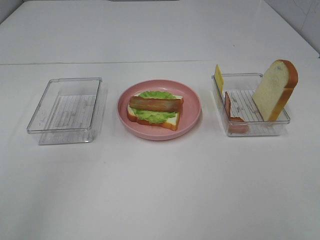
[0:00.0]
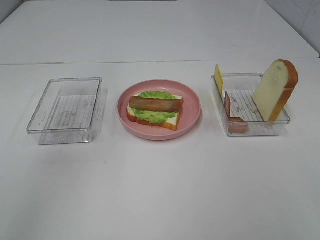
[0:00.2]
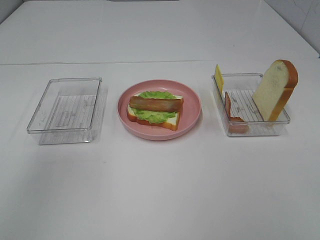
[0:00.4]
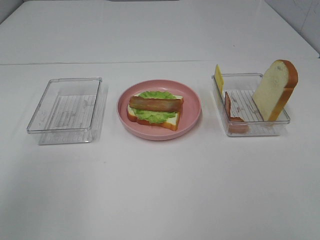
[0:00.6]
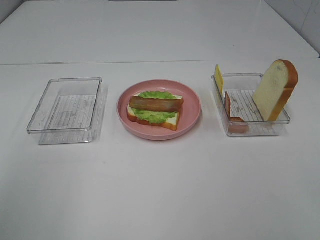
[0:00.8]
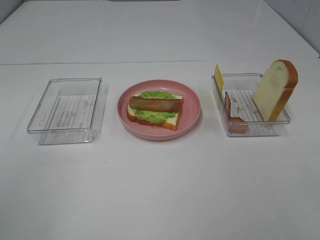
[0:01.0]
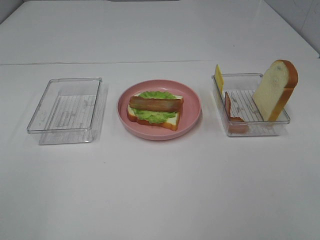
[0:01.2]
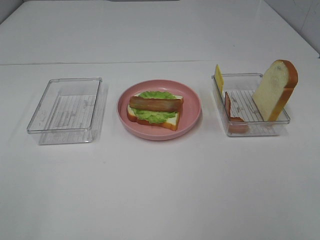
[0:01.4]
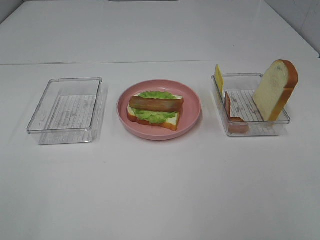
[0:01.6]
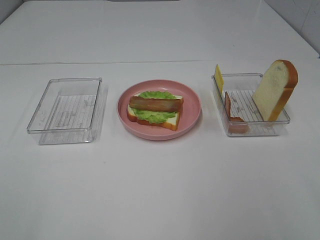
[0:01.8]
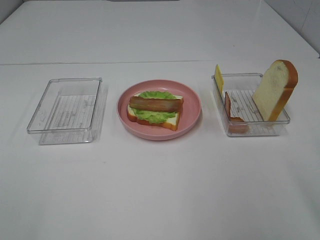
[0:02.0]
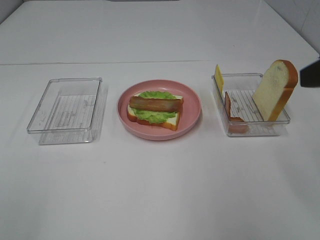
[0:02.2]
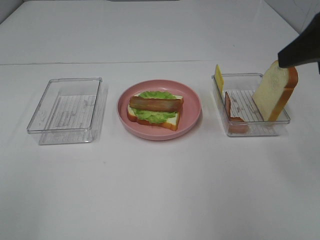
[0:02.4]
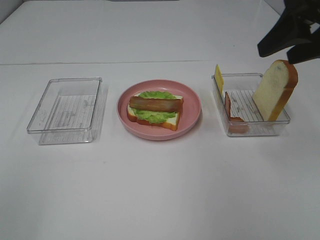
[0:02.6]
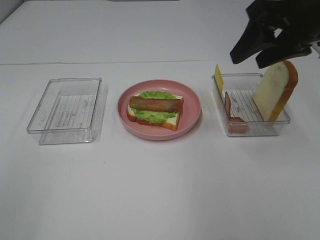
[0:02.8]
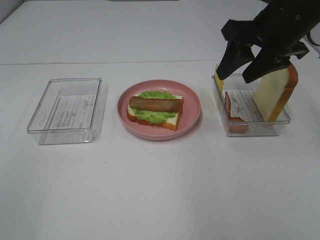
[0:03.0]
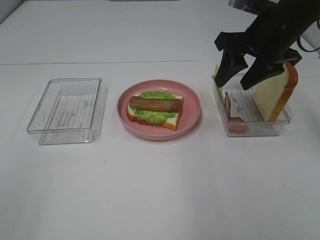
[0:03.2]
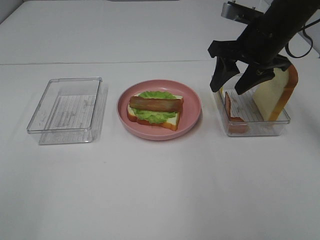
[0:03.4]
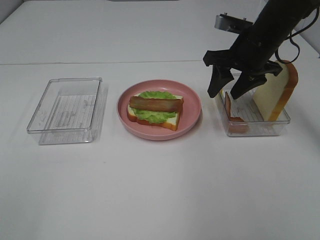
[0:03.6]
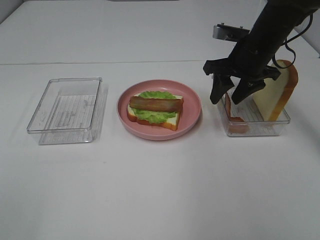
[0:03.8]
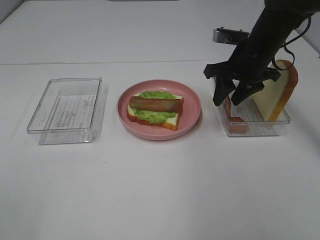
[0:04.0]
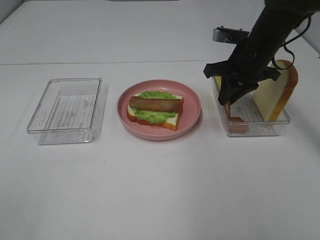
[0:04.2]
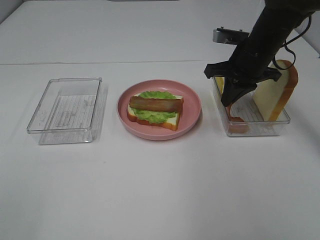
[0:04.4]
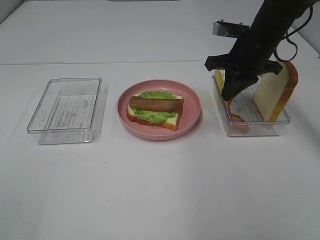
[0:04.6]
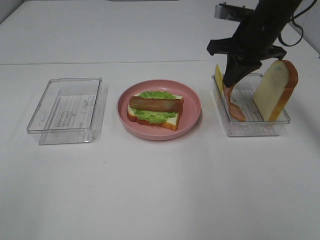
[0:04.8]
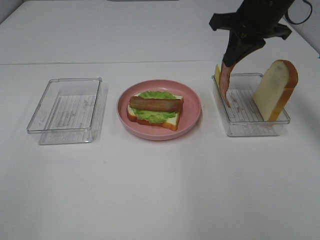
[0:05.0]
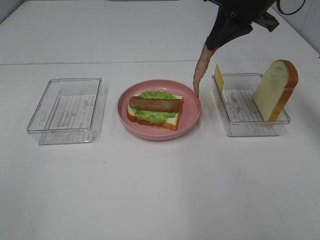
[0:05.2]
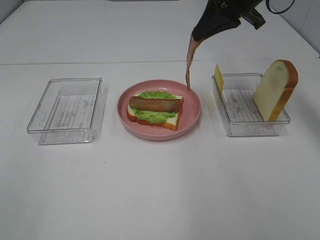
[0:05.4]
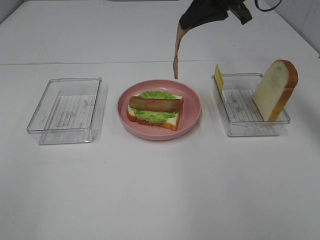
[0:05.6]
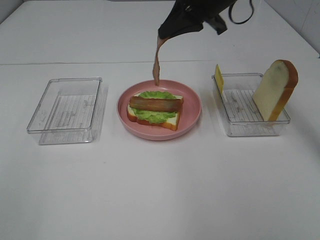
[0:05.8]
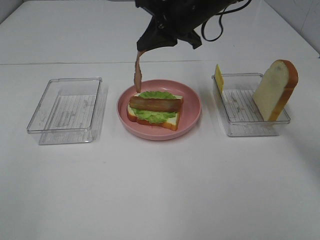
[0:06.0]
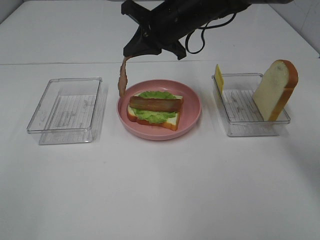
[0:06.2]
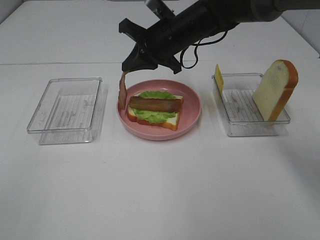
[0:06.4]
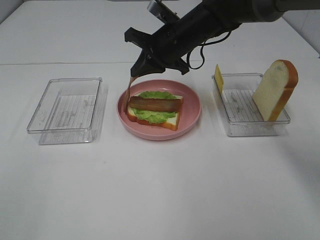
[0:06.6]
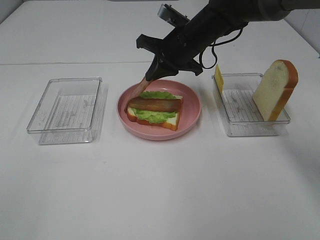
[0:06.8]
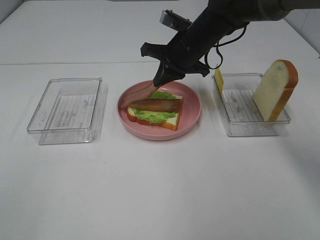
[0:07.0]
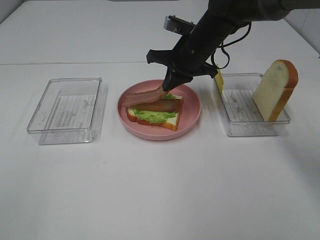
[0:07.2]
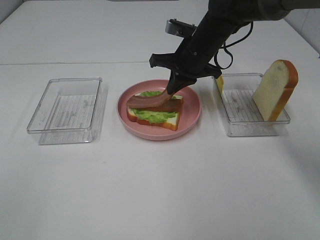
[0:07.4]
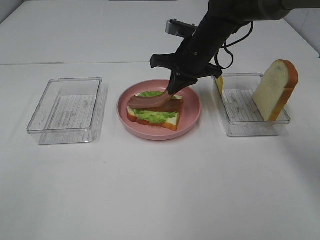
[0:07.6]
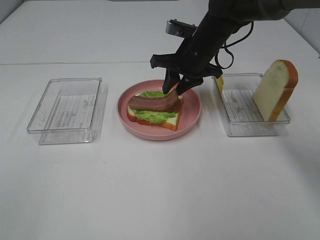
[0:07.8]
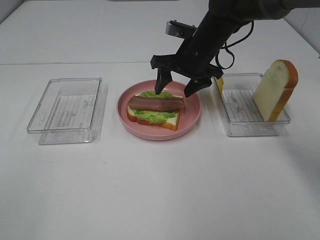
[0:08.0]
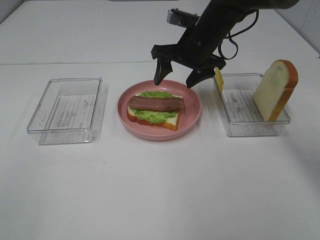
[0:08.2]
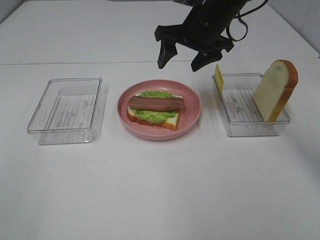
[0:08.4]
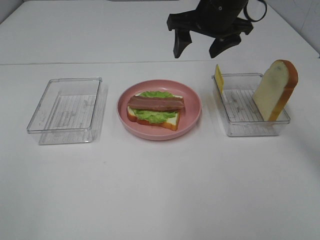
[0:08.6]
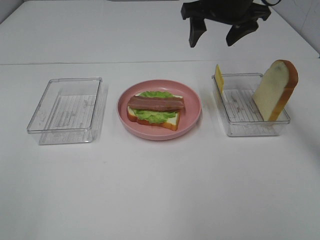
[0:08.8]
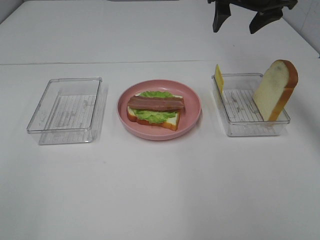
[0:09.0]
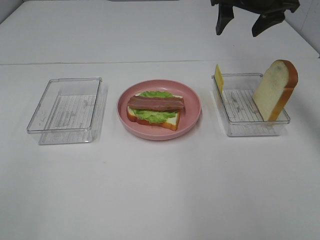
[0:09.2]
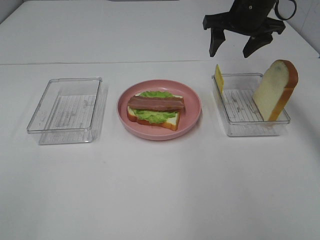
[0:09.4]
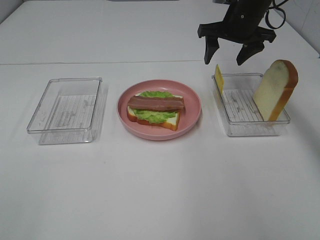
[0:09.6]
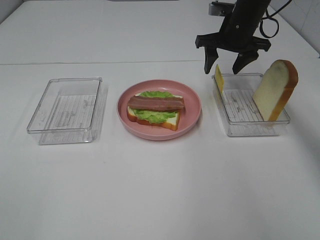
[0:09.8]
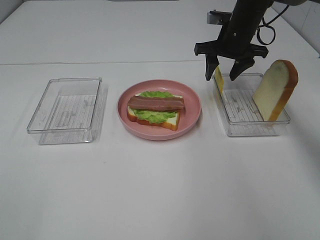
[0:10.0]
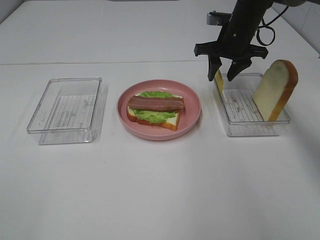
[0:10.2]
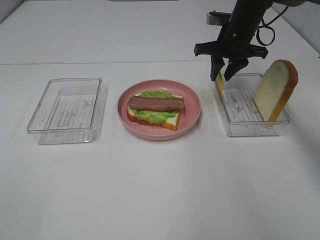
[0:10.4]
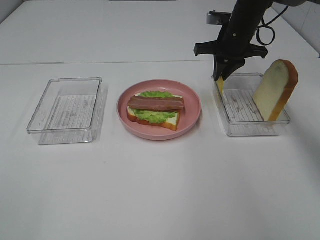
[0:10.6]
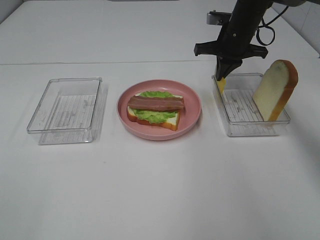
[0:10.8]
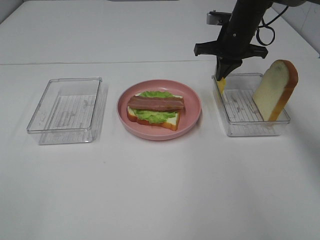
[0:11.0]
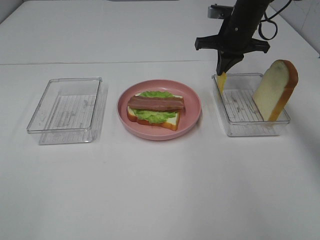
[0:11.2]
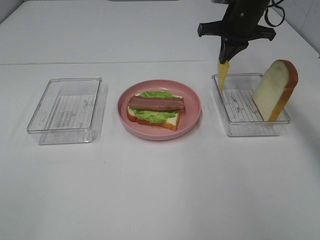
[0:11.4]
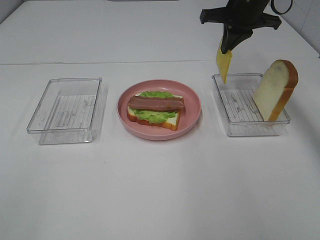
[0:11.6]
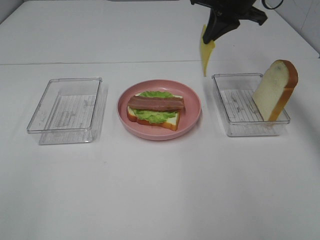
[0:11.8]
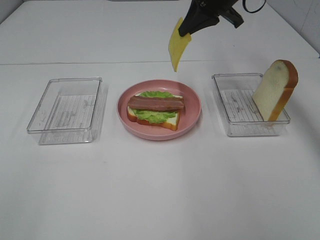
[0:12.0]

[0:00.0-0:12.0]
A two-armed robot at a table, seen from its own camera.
Task of the whole recording: Make sandwiches.
Step, 0:00.0 to 0:04.4: Right hand:grab the bacon.
Step, 0:04.6 to 0:08.0: Right hand:place bacon on bacon.
Step, 0:08.2 to 0:11.2: Right hand:grab the cheese slice.
0:01.6 to 0:03.0: The right gripper heads forward, covering some 30 cm.
0:03.0 to 0:04.4: The right gripper heads downward and forward, covering about 10 cm, and closes up.
0:04.4 to 0:06.0: The right gripper travels to the left and upward by about 15 cm.
0:06.0 to 0:07.6: The right gripper moves downward, about 10 cm.
0:07.6 to 0:09.0: The right gripper moves upward and to the right, some 15 cm, and opens up.
0:09.0 to 0:10.4: The right gripper moves downward, approximately 10 cm, and closes its fingers.
0:10.4 to 0:12.0: The right gripper shifts about 10 cm upward, and closes its fingers.

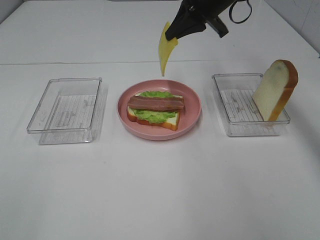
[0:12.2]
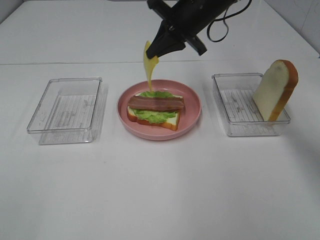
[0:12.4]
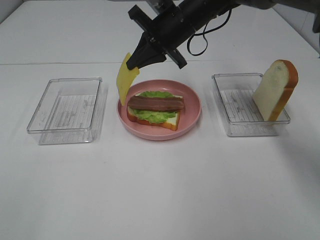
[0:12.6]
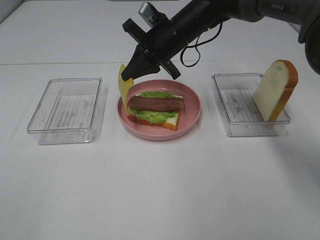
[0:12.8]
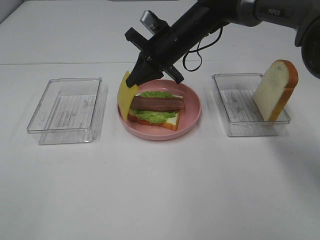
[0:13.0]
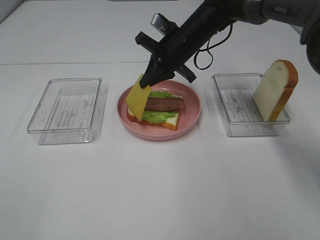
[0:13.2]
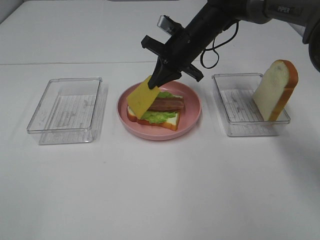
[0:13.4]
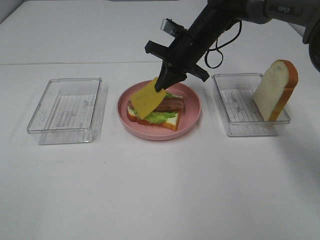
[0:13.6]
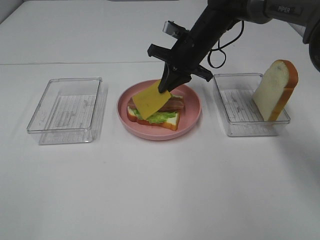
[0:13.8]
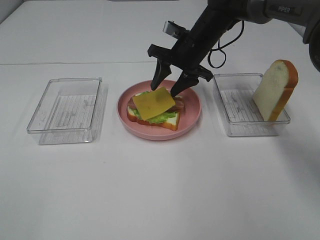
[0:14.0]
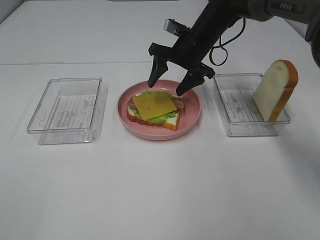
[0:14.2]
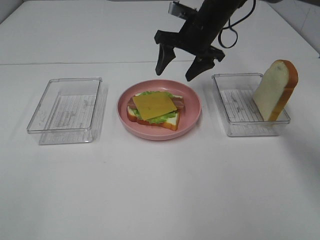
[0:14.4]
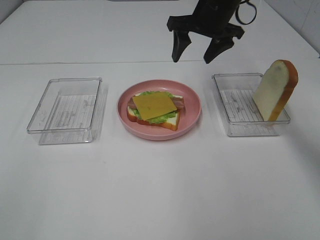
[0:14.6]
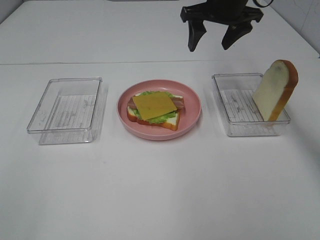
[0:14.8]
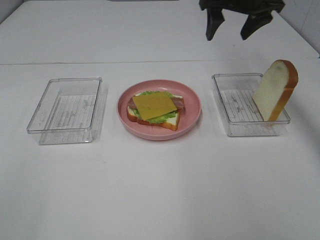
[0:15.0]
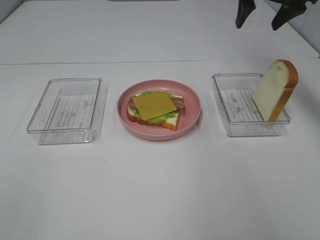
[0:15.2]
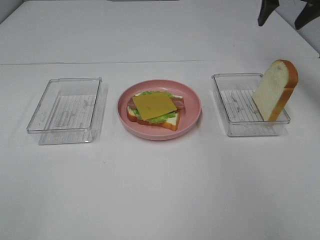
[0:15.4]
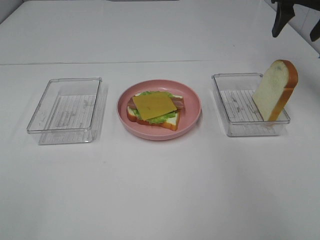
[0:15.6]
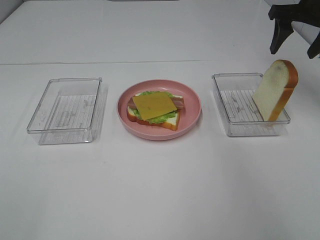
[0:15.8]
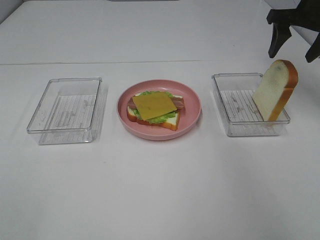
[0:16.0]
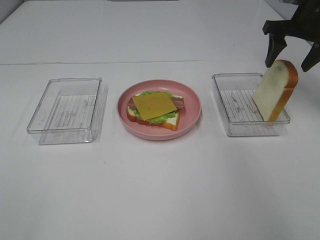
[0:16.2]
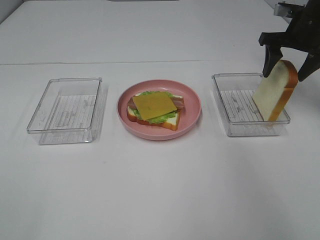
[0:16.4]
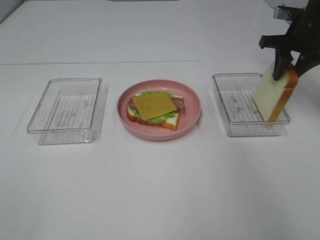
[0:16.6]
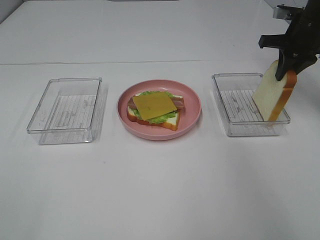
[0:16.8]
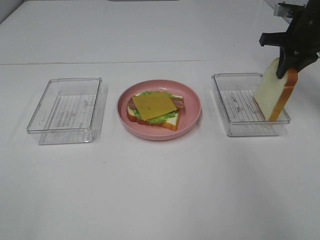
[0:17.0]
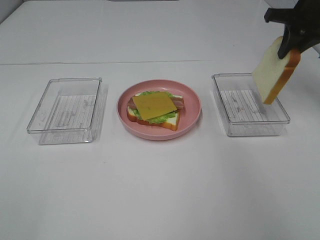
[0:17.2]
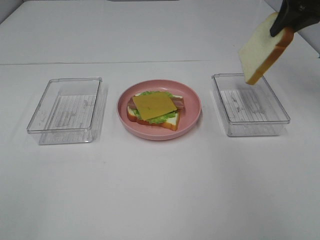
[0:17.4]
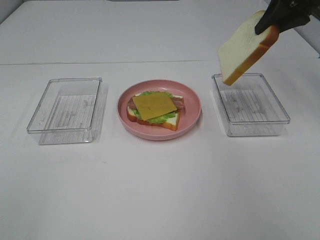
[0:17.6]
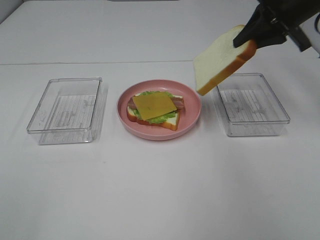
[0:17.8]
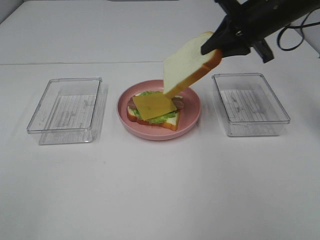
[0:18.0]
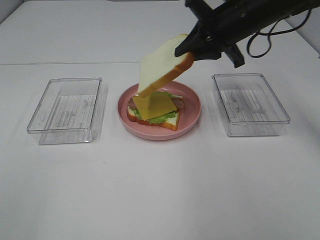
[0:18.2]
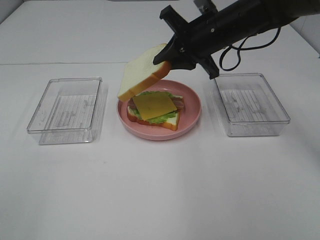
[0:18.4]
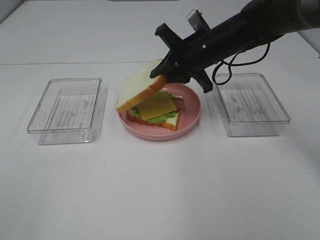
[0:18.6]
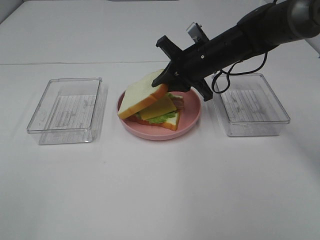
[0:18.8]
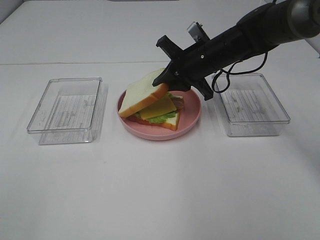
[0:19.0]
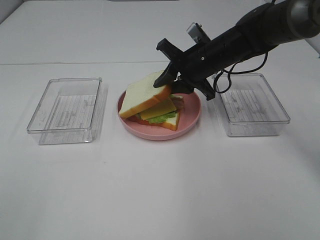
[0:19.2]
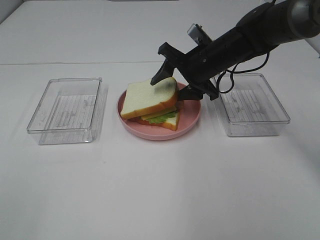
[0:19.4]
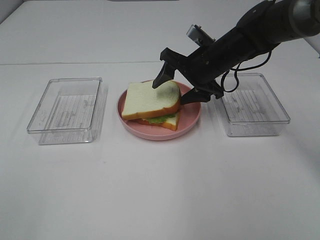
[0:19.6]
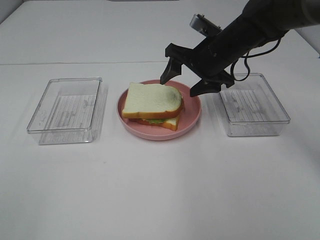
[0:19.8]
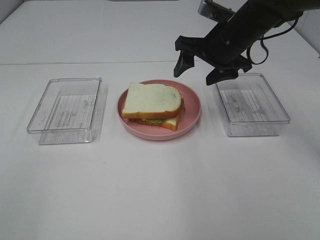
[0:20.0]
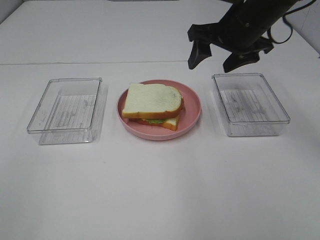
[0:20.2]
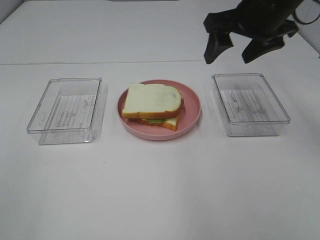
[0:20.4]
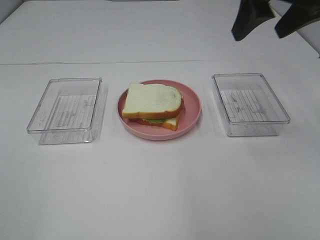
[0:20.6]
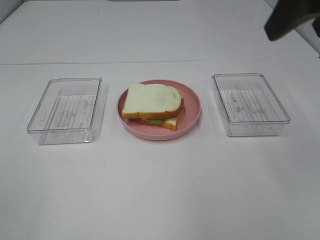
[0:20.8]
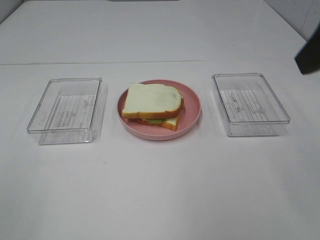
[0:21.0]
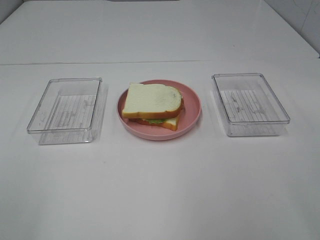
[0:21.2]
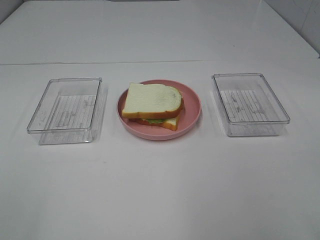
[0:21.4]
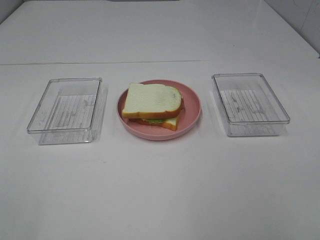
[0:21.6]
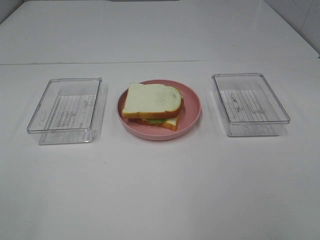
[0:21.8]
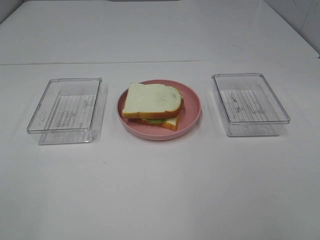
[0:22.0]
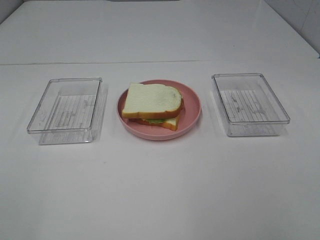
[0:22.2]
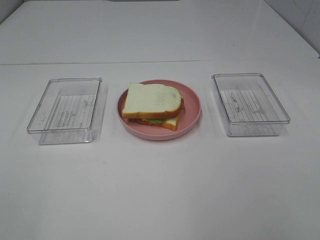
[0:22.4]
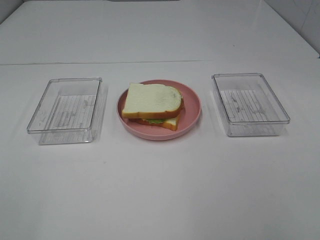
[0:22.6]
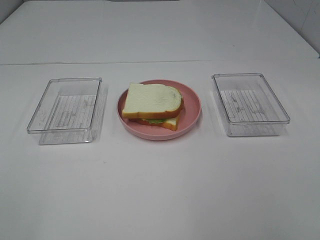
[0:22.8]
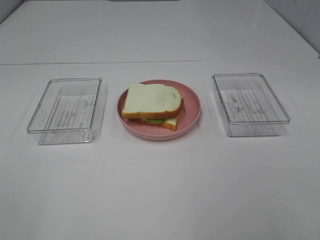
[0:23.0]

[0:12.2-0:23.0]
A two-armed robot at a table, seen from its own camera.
Task of the whole recording: Make sandwiches.
Step, 0:12.2 to 0:14.2: Right hand:place the cheese slice on top of the bacon.
Step, 0:14.4 to 0:16.8: Right hand:grab the bread slice.
Step, 0:17.0 to 0:19.8: Right hand:place the bread slice on the cheese slice.
0:12.2 to 0:13.8: The right gripper is displaced downward by some 10 cm.
0:13.8 to 0:15.2: The right gripper goes roughly 20 cm to the right and upward, and opens its fingers.
0:15.2 to 0:16.8: The right gripper moves downward and to the right, about 10 cm, and closes.
0:16.8 to 0:18.4: The right gripper heads to the left, covering approximately 20 cm.
0:18.4 to 0:20.0: The right gripper opens.
0:20.0 to 0:21.4: The right gripper shifts roughly 35 cm backward.
